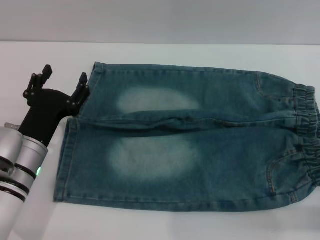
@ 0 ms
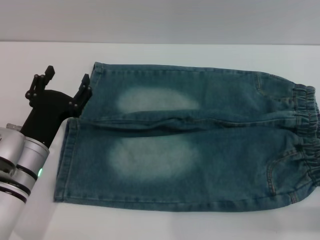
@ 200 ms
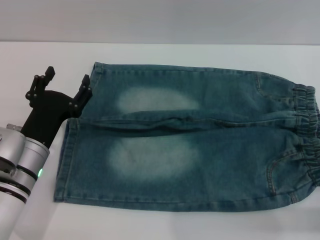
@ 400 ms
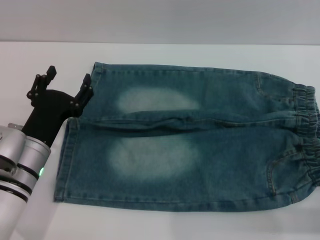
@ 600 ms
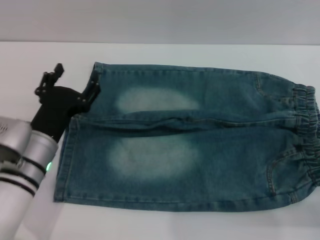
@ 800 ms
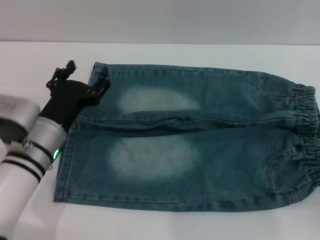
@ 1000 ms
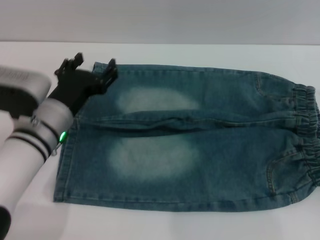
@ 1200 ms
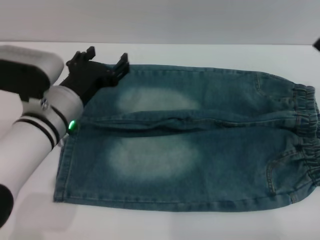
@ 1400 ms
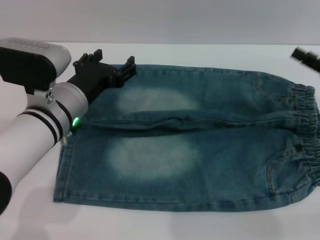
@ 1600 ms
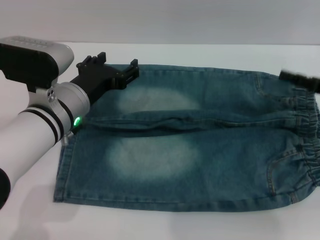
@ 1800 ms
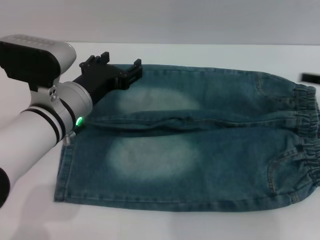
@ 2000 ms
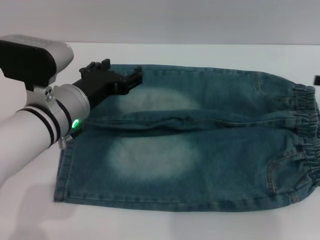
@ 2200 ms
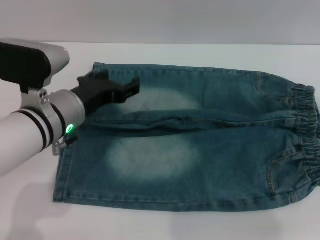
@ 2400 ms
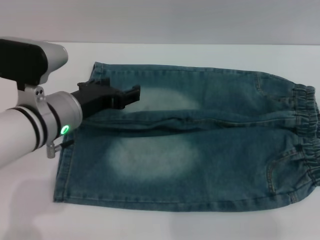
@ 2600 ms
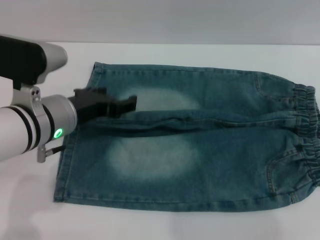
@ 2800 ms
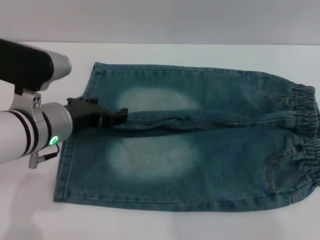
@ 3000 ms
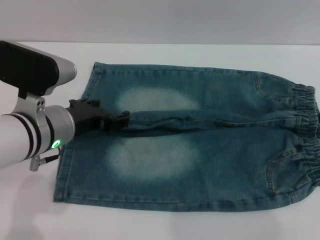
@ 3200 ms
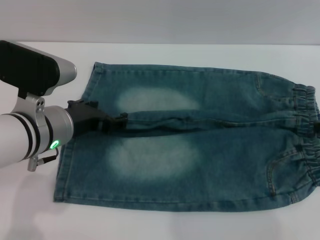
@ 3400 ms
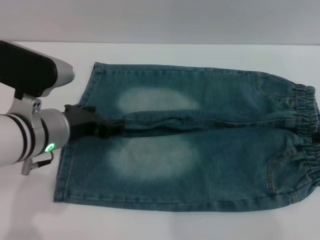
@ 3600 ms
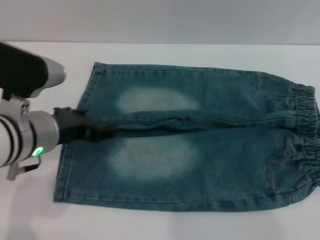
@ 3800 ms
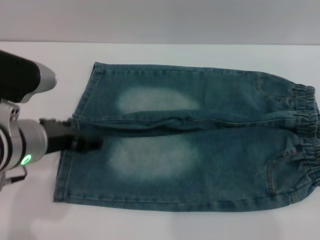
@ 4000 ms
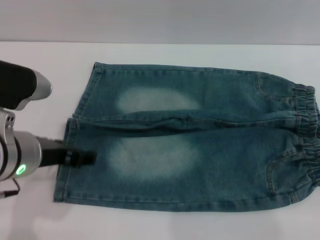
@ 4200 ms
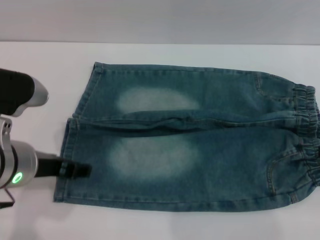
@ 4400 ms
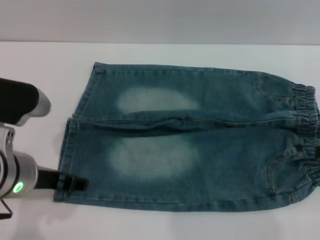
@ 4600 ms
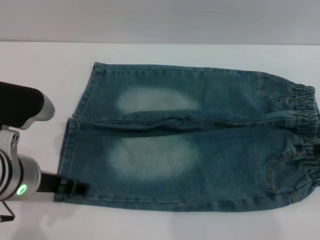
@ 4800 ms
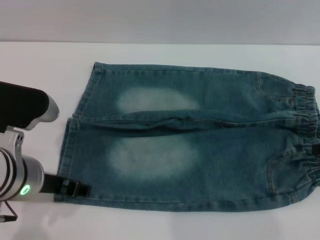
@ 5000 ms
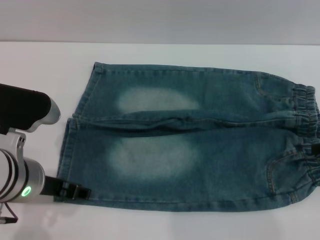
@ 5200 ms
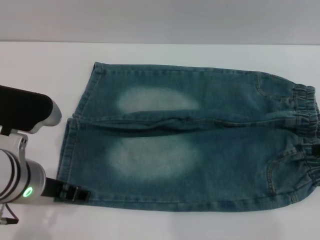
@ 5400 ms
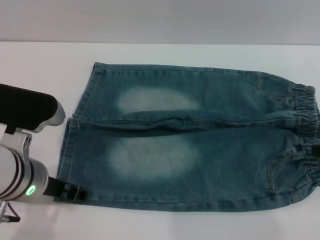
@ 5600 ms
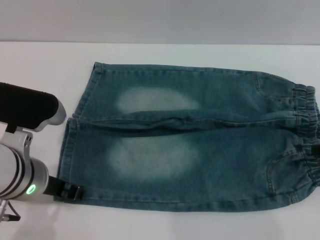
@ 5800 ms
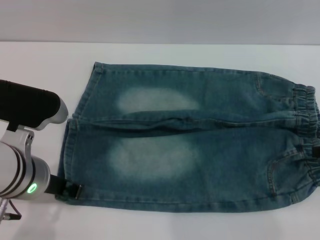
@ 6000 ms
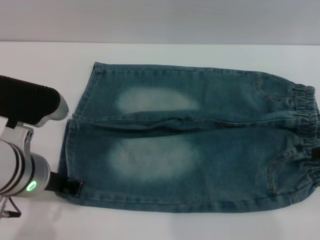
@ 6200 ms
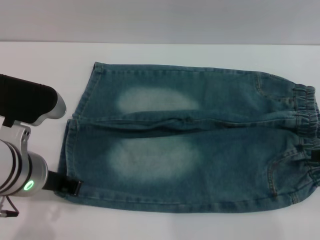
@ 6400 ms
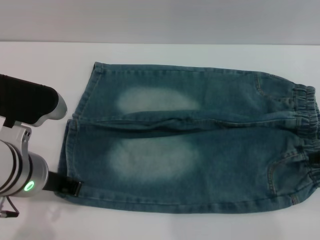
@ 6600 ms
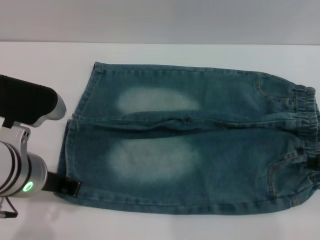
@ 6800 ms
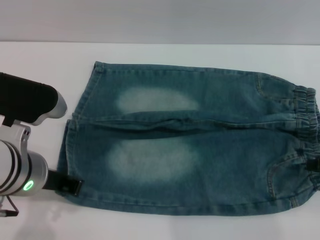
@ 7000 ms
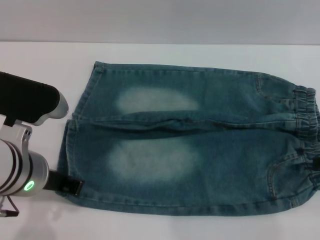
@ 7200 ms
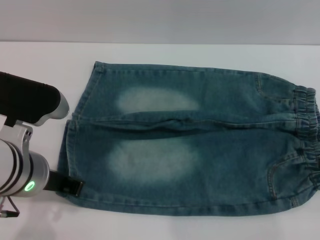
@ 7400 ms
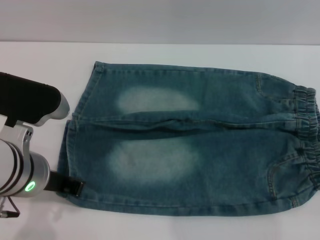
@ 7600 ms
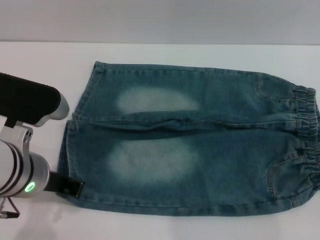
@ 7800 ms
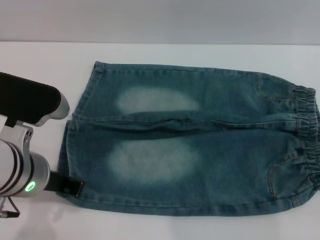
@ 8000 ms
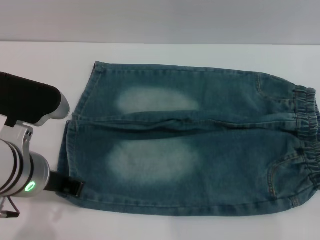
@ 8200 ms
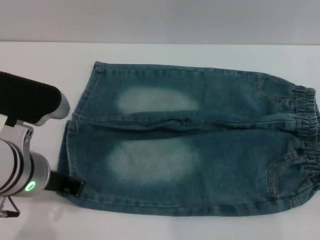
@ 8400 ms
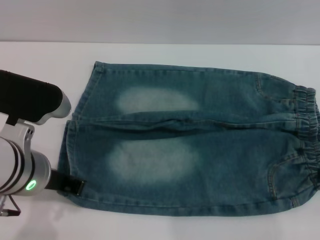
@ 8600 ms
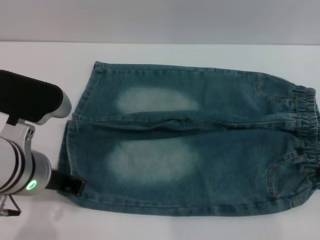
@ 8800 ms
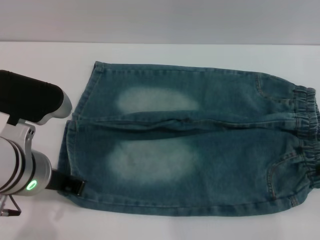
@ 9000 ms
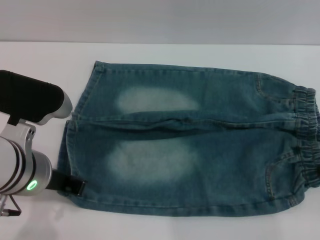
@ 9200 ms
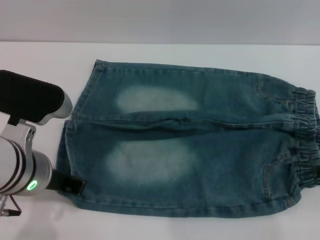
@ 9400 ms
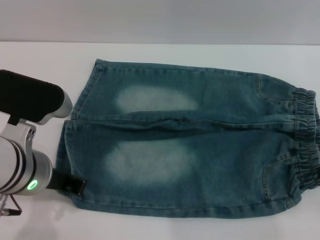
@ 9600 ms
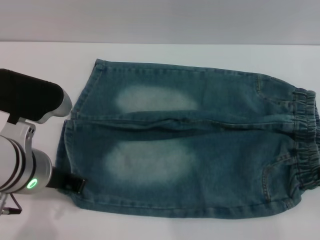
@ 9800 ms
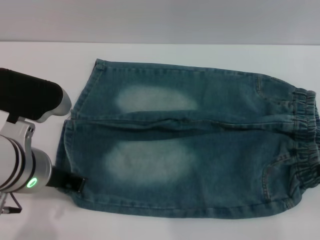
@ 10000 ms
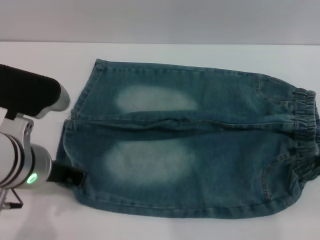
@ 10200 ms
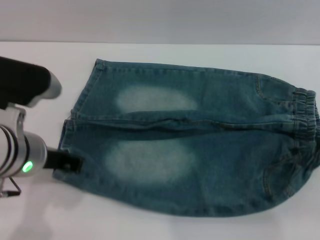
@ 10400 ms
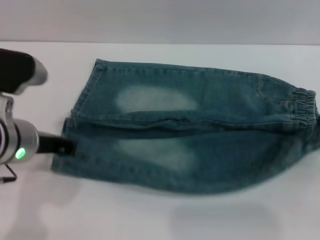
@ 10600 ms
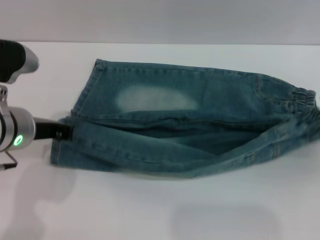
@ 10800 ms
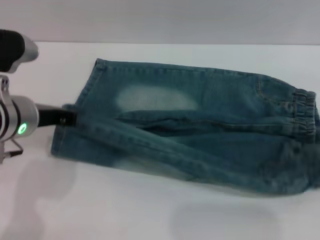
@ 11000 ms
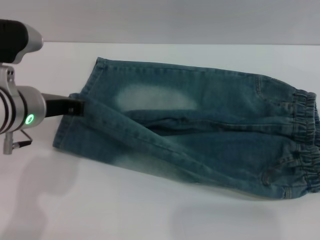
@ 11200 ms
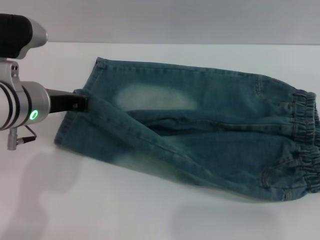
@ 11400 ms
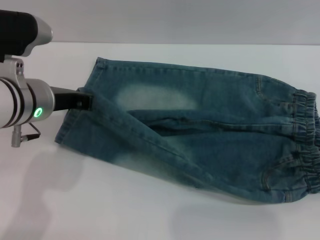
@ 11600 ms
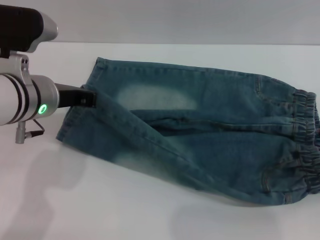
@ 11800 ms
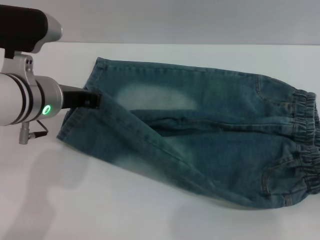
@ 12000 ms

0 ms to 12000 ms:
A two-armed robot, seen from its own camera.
0 ms to 1600 ms: The left gripper moves upward, to the right and forward, some 10 cm. Meanwhile the right gripper is displaced forward and upward by some 15 cm.
1600 ms to 3000 ms: The right gripper travels upward by about 5 cm.
3000 ms to 4400 ms: The left gripper goes approximately 5 cm backward.
4400 ms to 6000 ms: The grippers move only a little.
6000 ms to 7600 ms: The left gripper closes its fingers.
7600 ms to 9000 ms: The grippers move only a little.
9000 ms to 10400 ms: The right gripper closes up.
10400 ms to 12000 ms: The left gripper shifts about 5 cm forward. Meanwhile the right gripper goes roughly 5 cm backward.

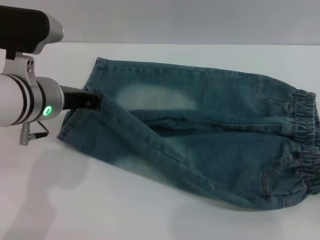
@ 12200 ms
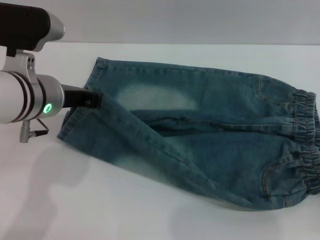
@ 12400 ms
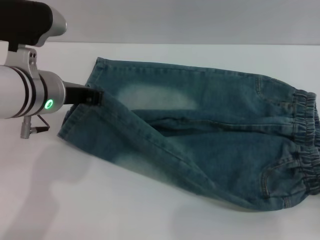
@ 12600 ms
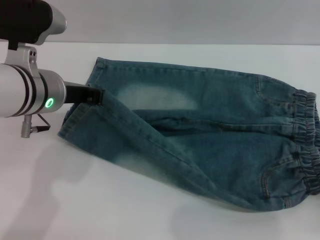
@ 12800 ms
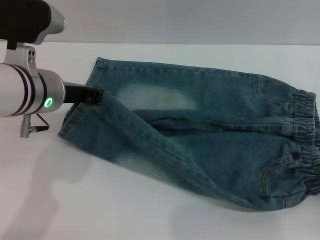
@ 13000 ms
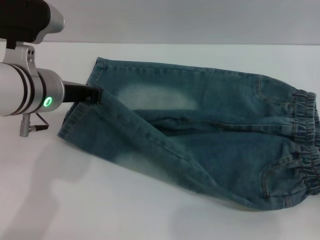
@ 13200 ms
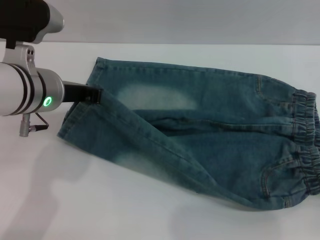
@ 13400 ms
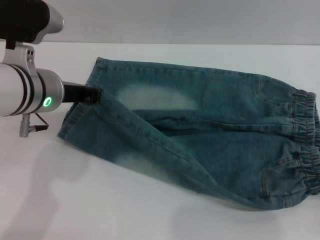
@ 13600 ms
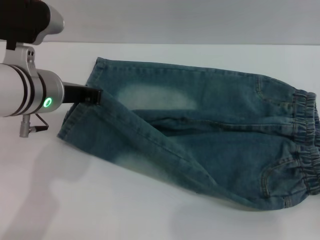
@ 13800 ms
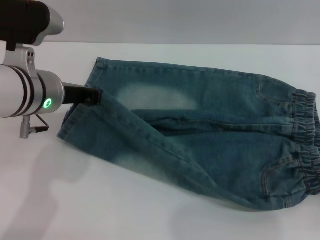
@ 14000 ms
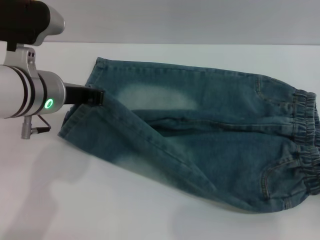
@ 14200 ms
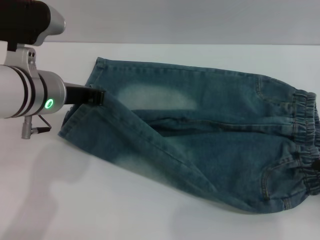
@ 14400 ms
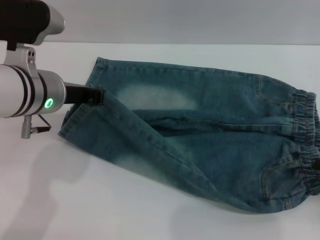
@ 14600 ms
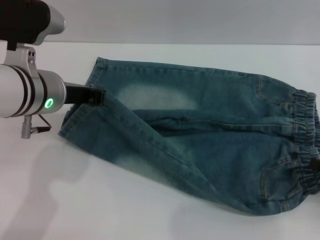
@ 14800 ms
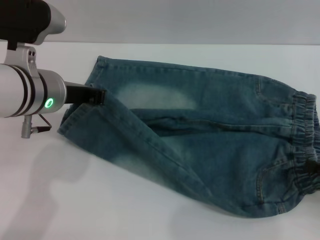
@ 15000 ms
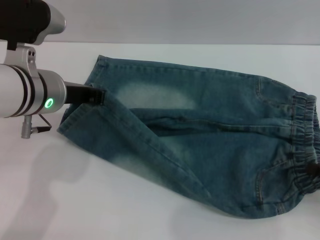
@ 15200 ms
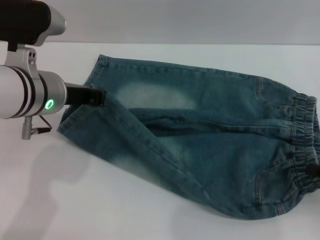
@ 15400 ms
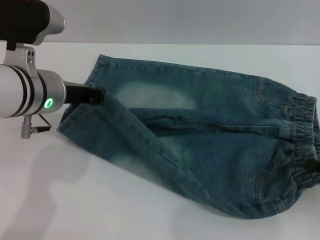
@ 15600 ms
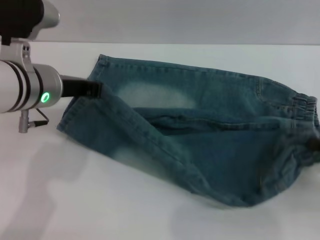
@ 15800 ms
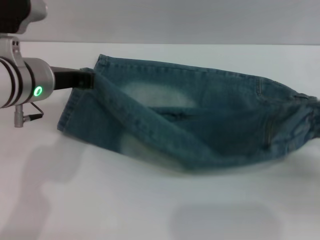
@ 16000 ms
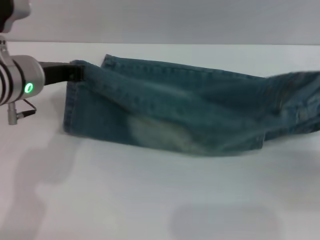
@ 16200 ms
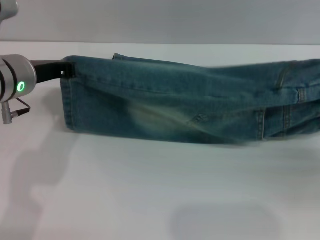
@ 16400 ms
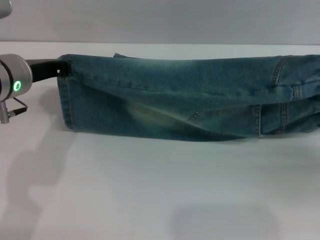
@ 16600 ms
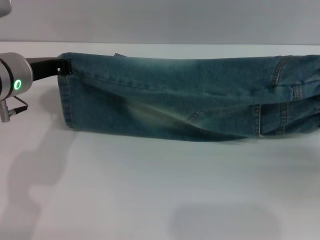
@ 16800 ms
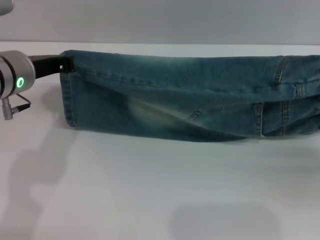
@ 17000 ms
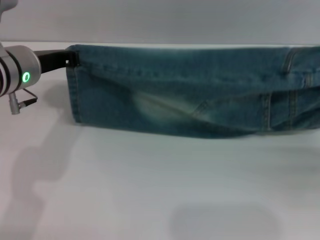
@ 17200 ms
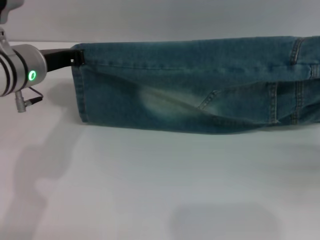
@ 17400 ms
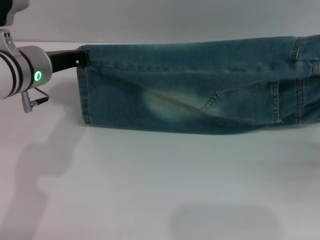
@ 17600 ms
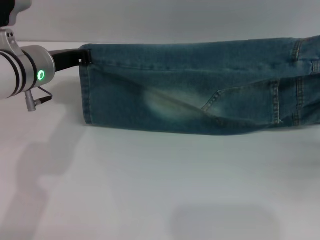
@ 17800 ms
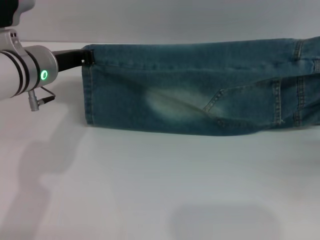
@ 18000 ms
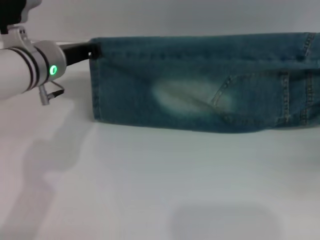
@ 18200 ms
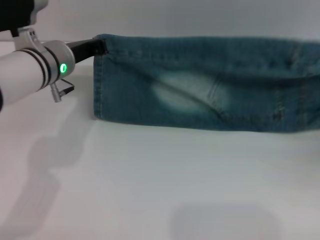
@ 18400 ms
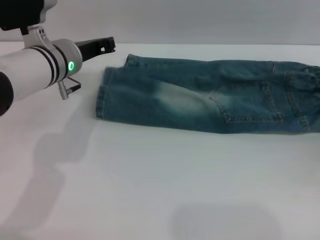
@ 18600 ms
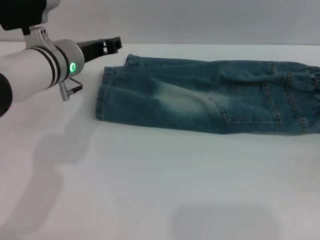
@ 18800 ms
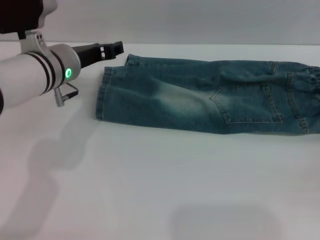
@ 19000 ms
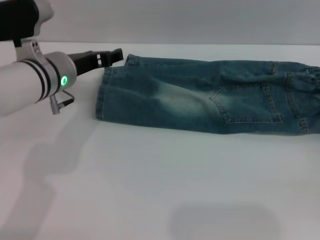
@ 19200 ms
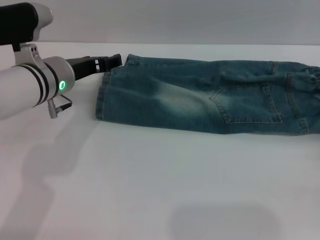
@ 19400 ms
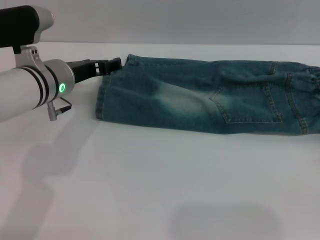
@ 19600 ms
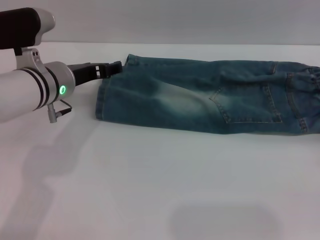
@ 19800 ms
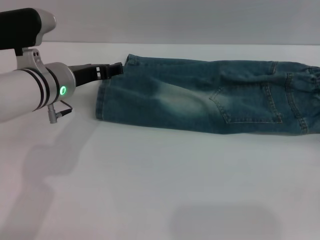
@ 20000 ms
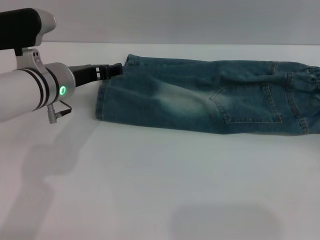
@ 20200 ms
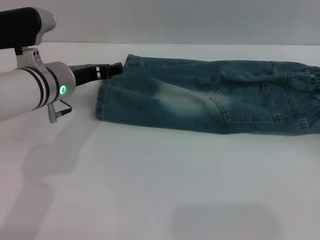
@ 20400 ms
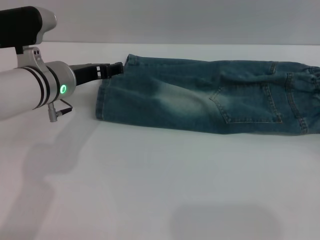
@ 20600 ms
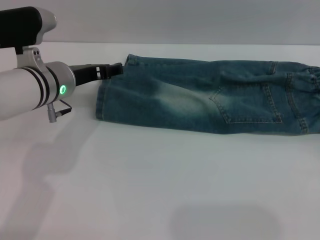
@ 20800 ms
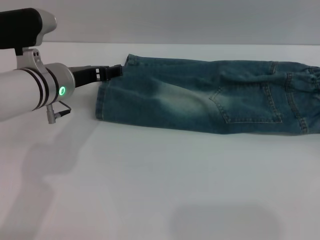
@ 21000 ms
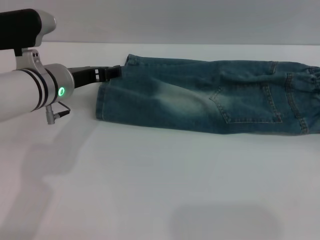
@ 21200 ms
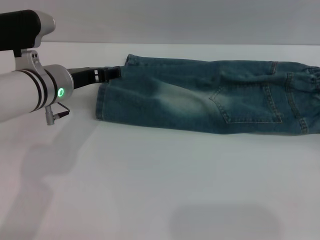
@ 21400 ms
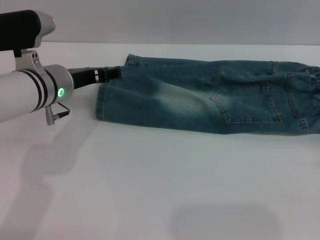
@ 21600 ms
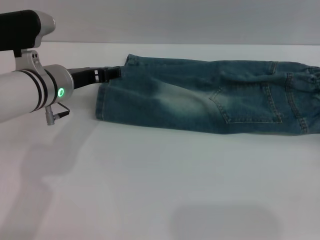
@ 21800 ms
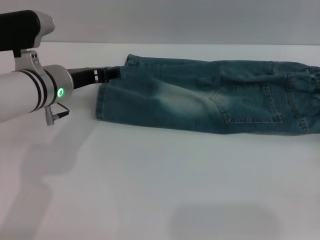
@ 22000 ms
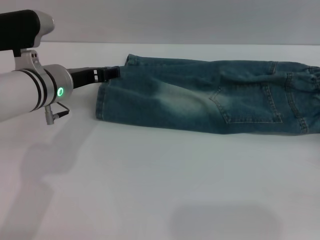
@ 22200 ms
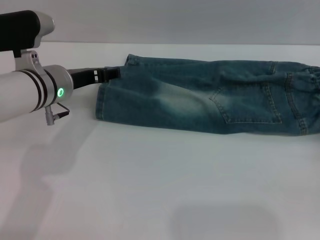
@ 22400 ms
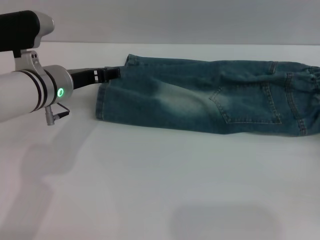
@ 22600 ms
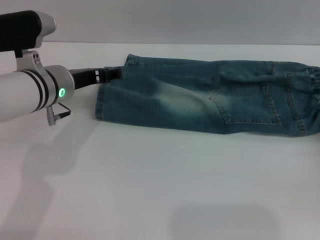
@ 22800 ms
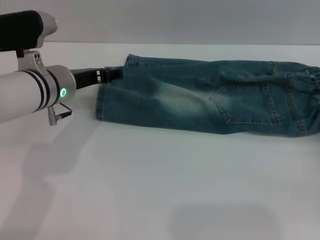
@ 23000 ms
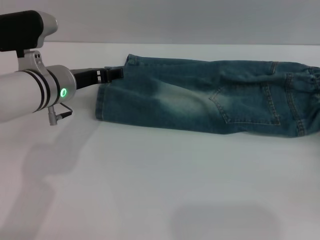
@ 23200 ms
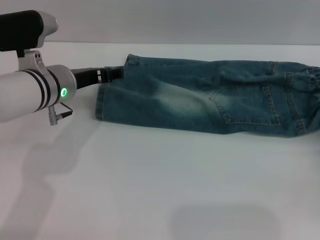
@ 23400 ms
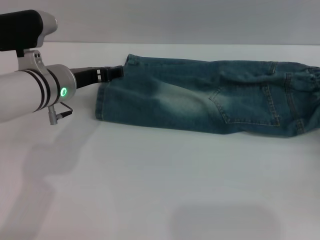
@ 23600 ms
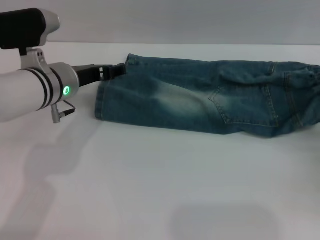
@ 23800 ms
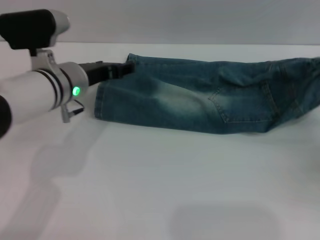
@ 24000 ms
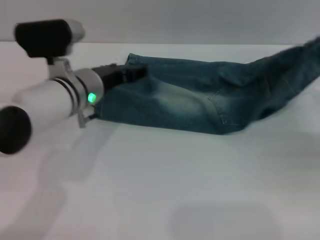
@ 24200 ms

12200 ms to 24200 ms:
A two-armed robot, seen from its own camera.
Step, 12200 ms to 20200 ms: Fold the bottom of the pants upward with both grippers.
12200 ms to 13800 ms: There are only small adjustments of the grippers.
13800 ms to 15200 ms: The right gripper closes up.
15200 ms to 16600 ms: The right gripper ends up roughly 5 cm from where it was.
16600 ms to 18200 ms: The left gripper changes place by approximately 5 cm.
18200 ms to 19800 ms: The left gripper opens its fingers. Meanwhile the right gripper travels downward and backward by some 10 cm, and opens.
19800 ms to 22600 ms: The grippers make only small movements.
22600 ms to 24200 ms: The right gripper shifts approximately 5 cm upward, and closes its fingers.
